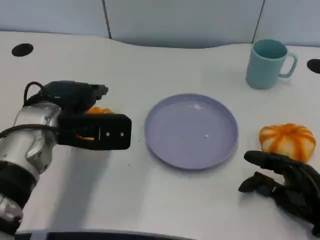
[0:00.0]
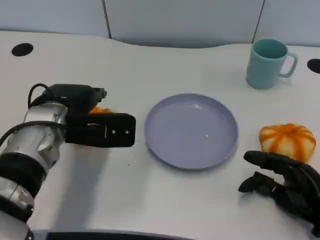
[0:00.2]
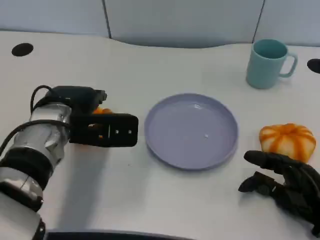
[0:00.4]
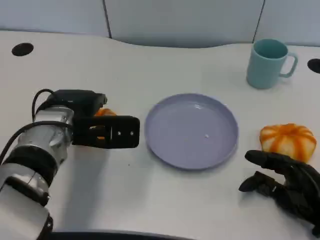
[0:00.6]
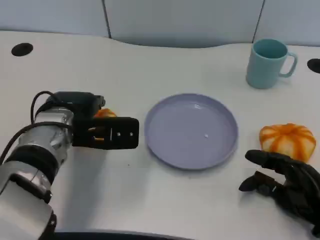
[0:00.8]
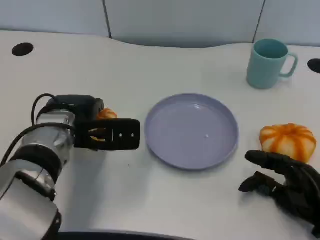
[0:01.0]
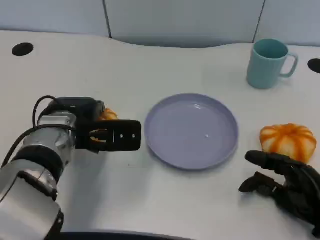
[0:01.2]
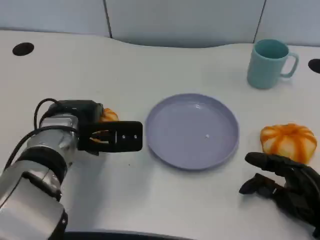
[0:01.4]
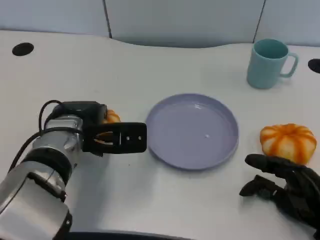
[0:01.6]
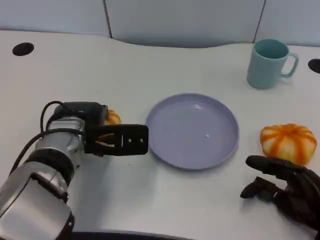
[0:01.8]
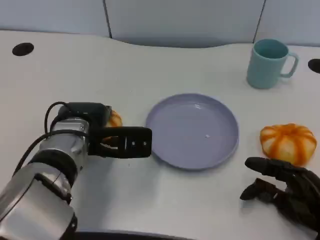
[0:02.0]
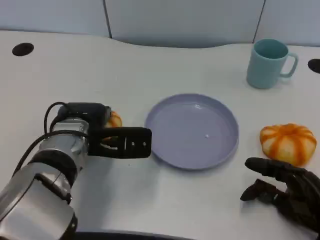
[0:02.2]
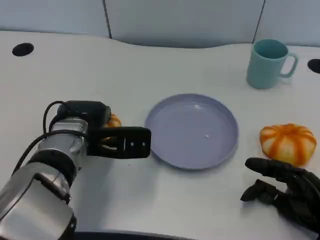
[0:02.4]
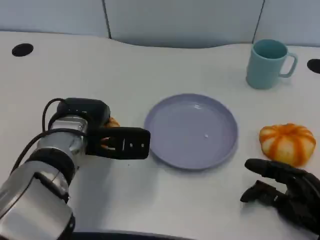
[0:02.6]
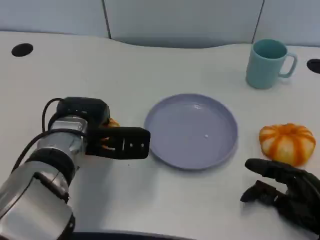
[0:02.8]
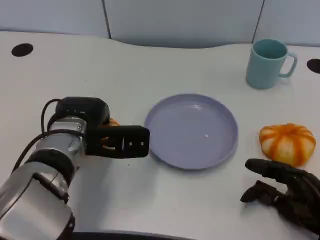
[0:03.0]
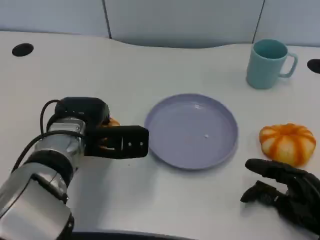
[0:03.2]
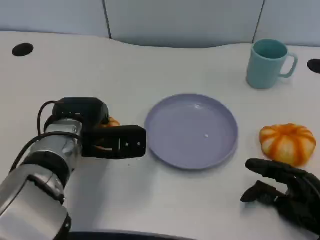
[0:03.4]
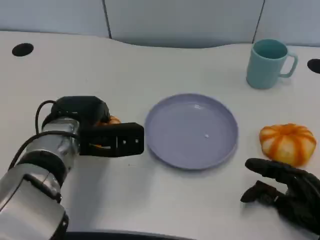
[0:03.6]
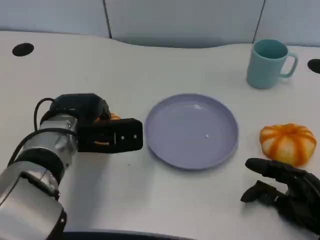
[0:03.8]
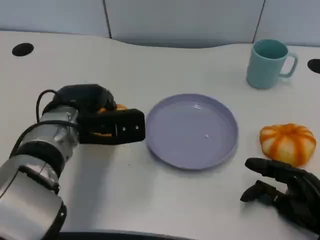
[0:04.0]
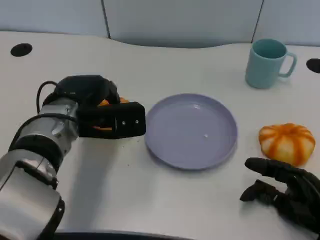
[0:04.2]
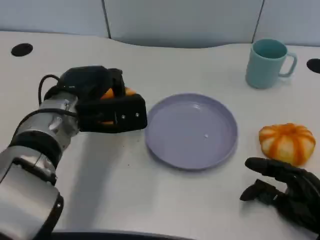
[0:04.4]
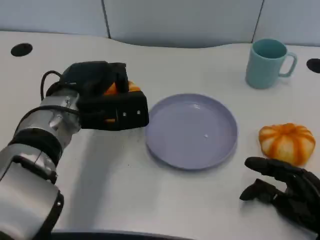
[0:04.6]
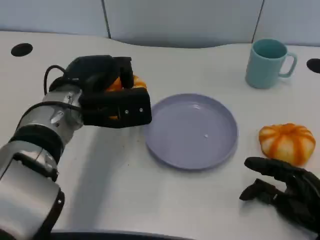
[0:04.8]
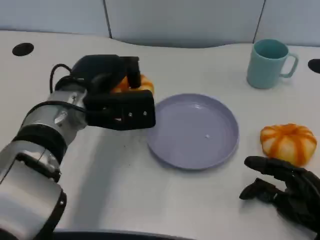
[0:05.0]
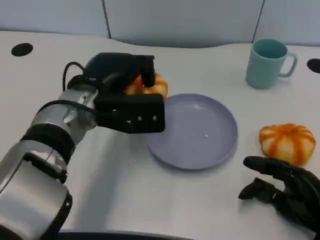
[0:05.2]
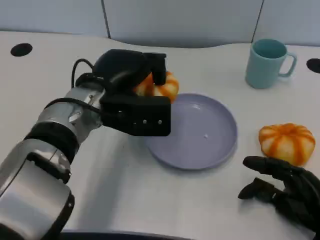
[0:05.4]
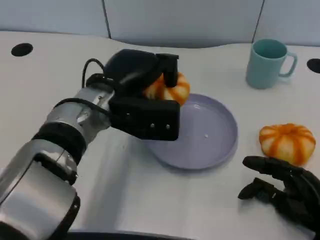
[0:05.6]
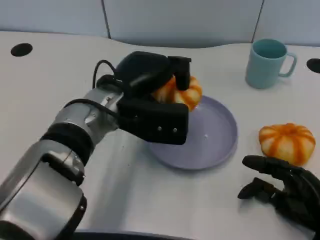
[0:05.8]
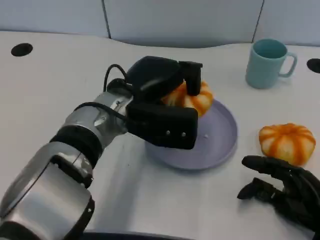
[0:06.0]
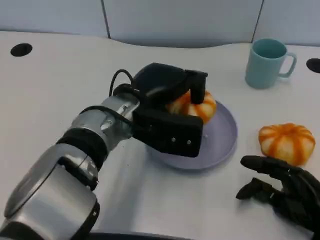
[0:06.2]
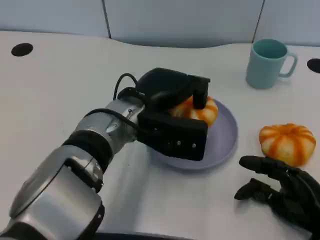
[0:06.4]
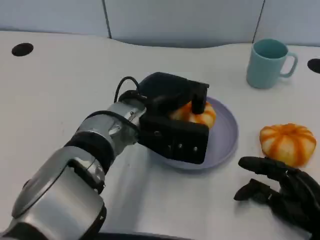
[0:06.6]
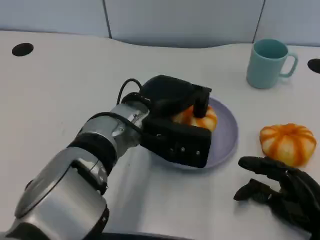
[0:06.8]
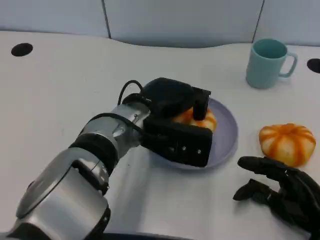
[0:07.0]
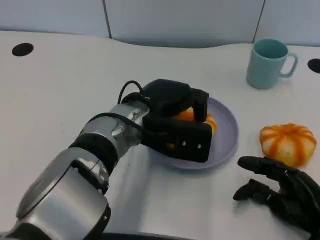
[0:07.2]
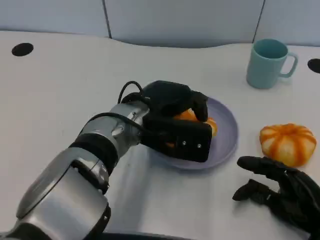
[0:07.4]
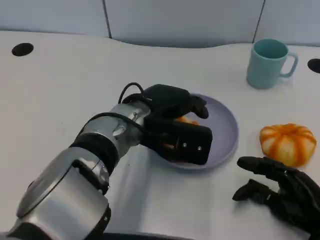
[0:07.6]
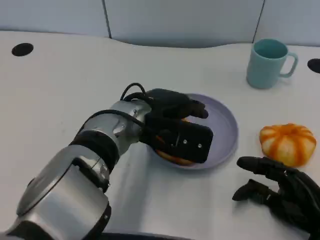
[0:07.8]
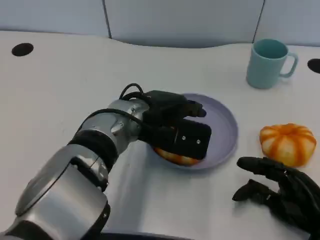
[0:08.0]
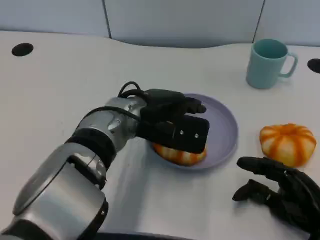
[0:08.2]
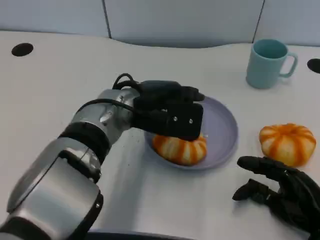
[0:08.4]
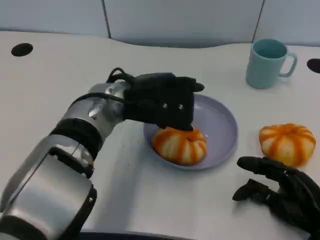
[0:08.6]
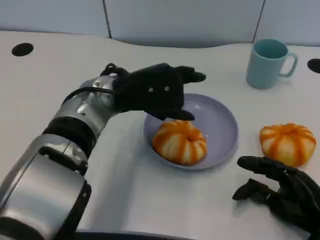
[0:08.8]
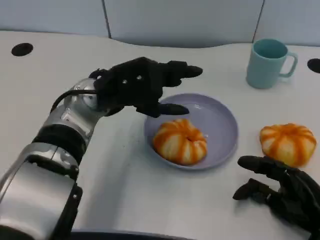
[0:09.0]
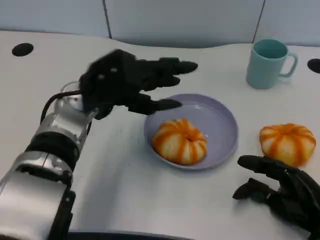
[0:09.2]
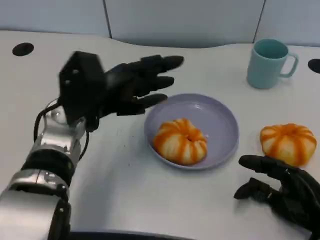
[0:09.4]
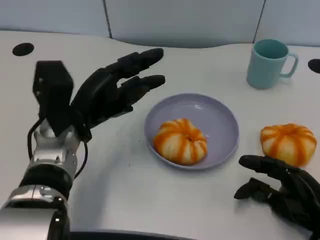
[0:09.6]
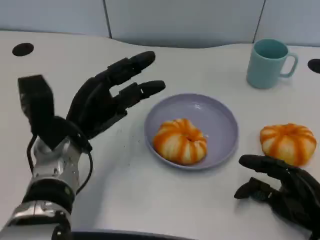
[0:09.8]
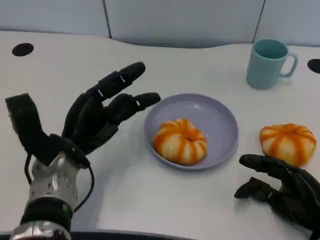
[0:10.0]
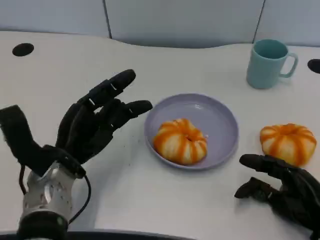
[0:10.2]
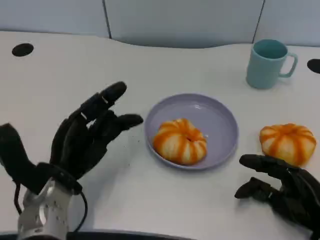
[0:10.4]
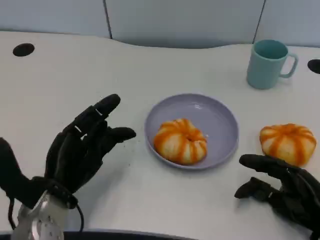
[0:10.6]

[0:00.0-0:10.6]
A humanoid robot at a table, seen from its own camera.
Task of the whole recording: Grasp the bread from the table and place it into the plate.
0:00.0 to 0:03.0: The hands stay close to where they were, moving slightly.
0:04.6 to 0:06.0: The left hand is displaced to the right by approximately 10 cm.
0:07.6 to 0:09.0: The left hand shifts approximately 5 cm to the left.
0:09.0 to 0:10.6: The left hand travels downward, backward and to the left by approximately 15 cm.

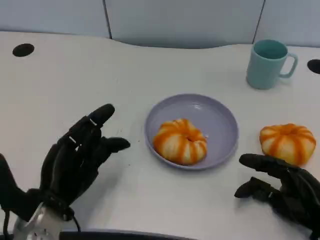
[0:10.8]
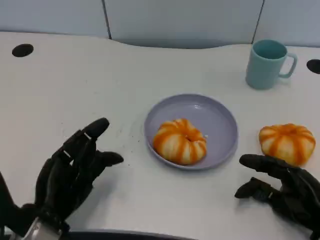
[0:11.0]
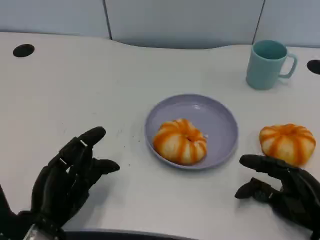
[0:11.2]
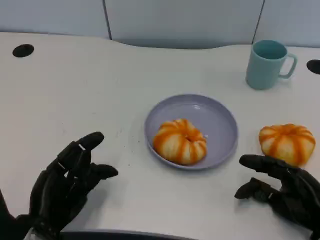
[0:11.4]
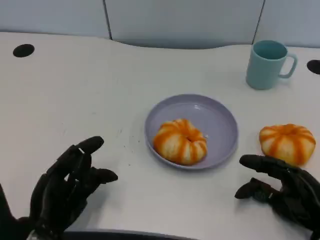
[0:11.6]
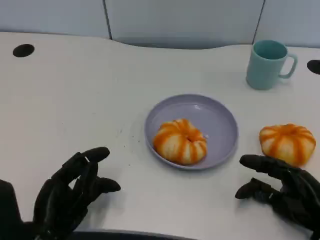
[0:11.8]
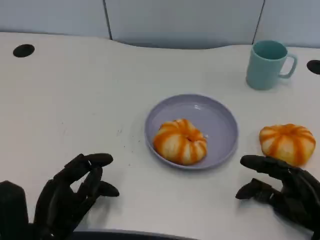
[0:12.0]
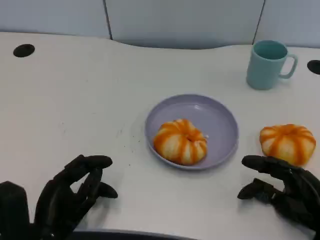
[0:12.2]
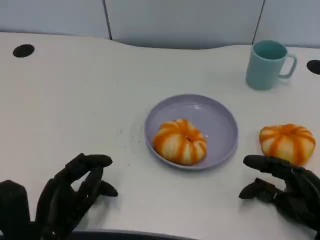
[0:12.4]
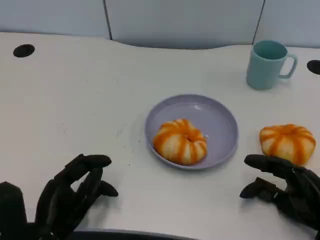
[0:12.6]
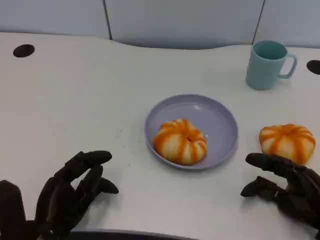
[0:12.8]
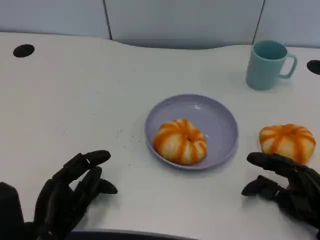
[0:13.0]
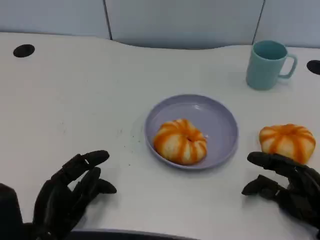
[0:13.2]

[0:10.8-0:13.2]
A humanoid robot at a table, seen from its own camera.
Task of the whole recording: Grasp the bread from the table and place it into the plate.
0:10.8 to 0:13.2: The hands move only a little.

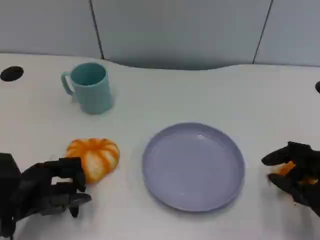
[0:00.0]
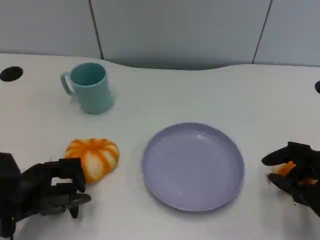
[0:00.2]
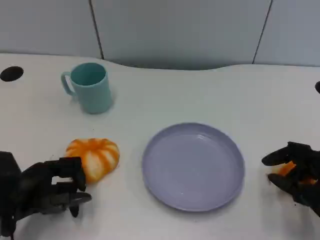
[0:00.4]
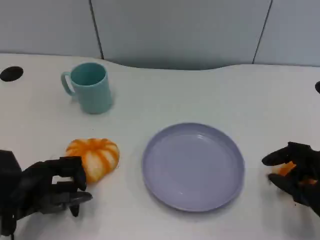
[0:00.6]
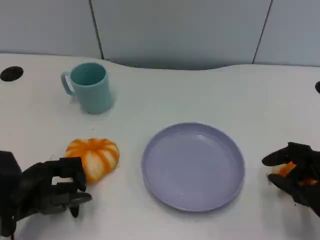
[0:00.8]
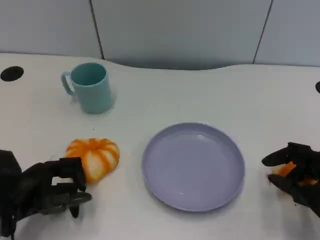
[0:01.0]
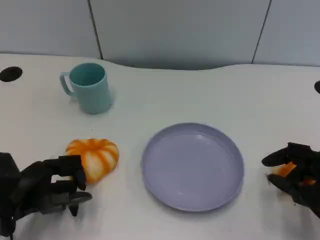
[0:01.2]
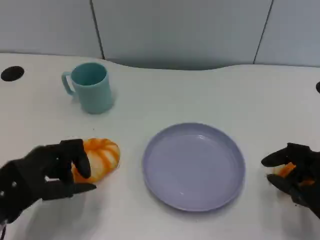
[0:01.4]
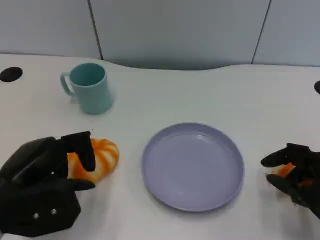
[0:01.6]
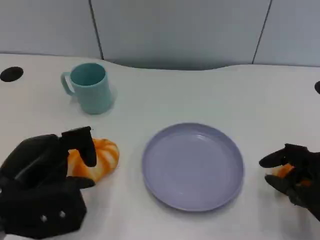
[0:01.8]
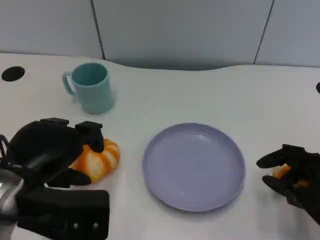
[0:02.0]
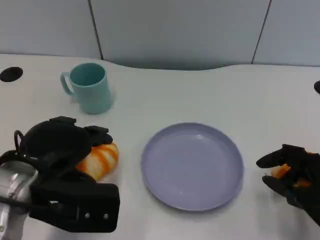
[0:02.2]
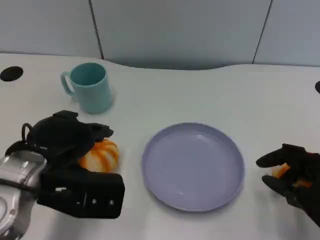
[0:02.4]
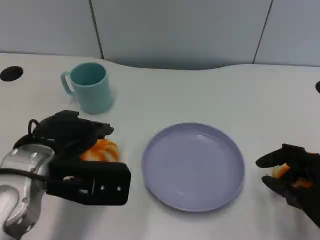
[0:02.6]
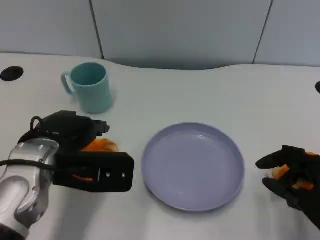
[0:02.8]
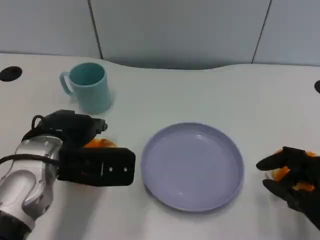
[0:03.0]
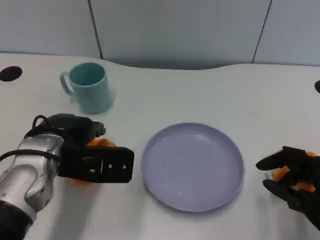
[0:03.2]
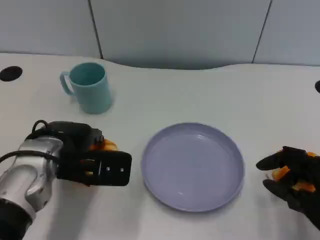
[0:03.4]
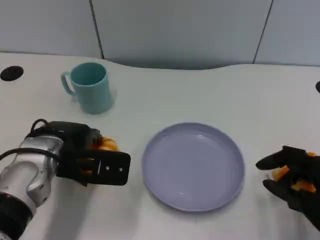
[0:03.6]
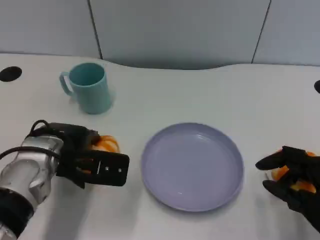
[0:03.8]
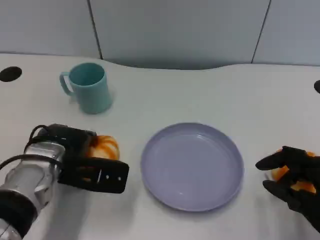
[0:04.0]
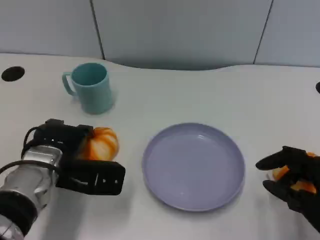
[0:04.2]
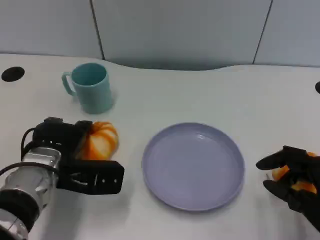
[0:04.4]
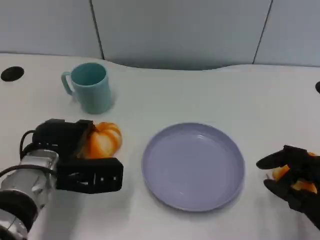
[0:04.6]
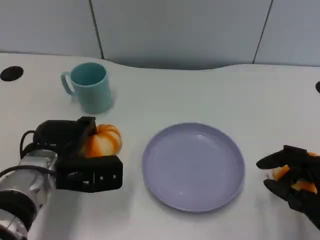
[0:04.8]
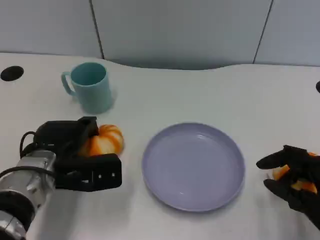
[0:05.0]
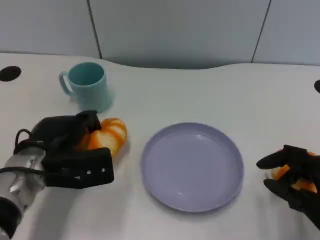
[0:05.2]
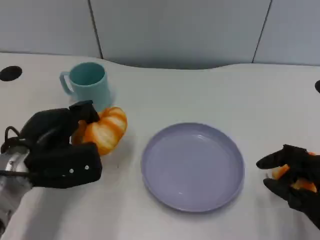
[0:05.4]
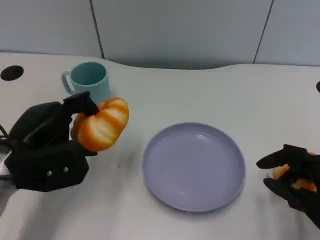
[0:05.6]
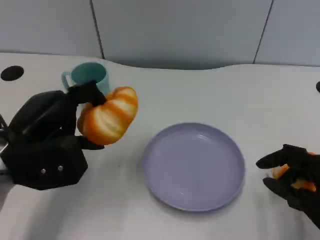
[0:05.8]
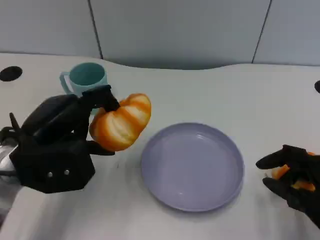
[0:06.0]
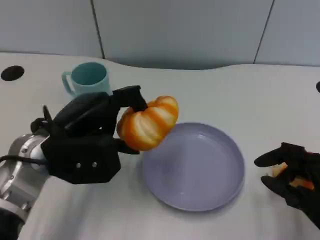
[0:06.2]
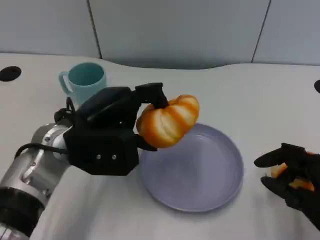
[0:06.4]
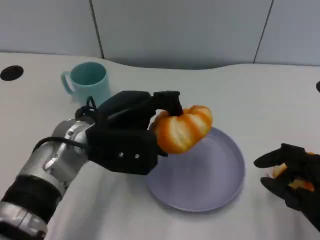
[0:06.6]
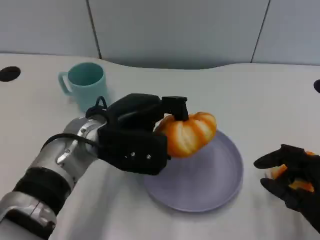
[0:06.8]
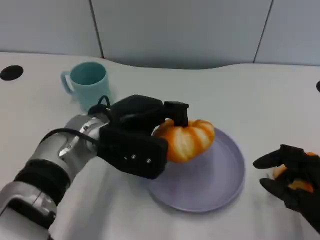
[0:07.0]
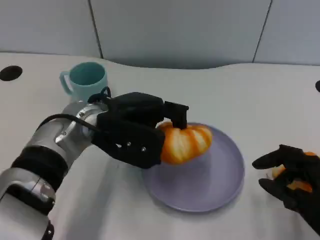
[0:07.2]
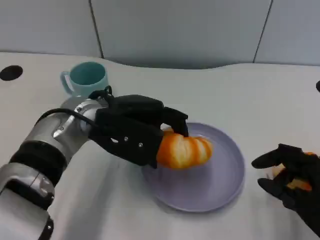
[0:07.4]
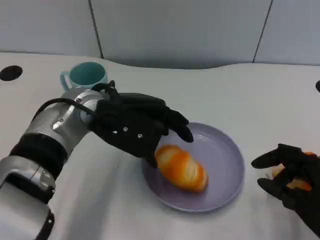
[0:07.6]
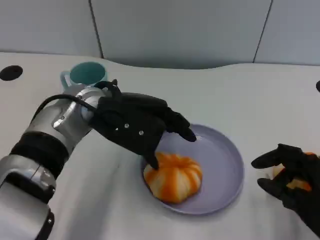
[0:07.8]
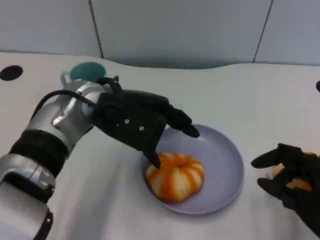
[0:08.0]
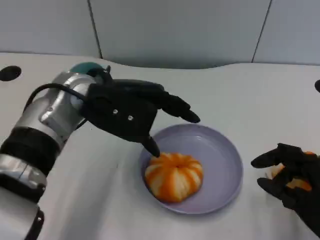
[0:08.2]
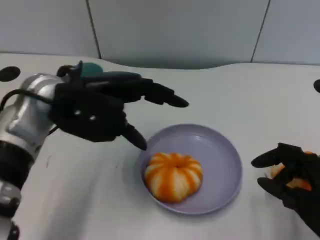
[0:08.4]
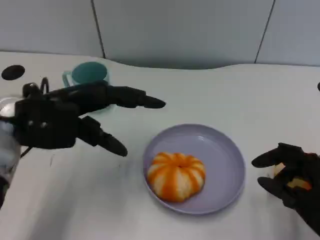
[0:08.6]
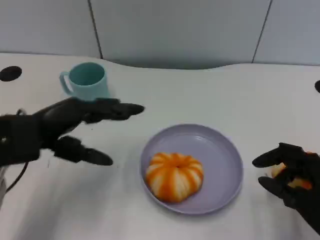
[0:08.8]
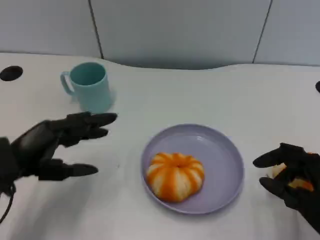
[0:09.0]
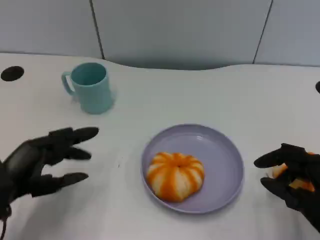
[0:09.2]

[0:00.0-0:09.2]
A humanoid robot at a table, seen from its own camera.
Task of the whole recording: Grasp the bread from the table and place it into the plate.
0:00.0 to 0:01.6: The left hand goes about 10 cm upward.
0:01.6 to 0:03.0: The left hand is displaced forward and to the right by some 10 cm.
0:03.0 to 0:04.6: The left hand moves downward, approximately 5 cm.
0:04.6 to 0:06.2: The left hand heads upward, covering approximately 10 cm.
0:06.2 to 0:07.6: The left hand is displaced to the right by about 5 cm.
0:07.6 to 0:09.2: The left hand goes roughly 20 cm to the left, backward and downward.
